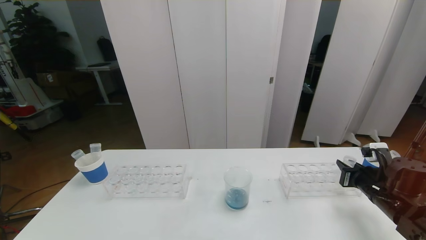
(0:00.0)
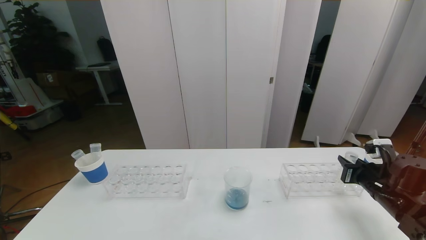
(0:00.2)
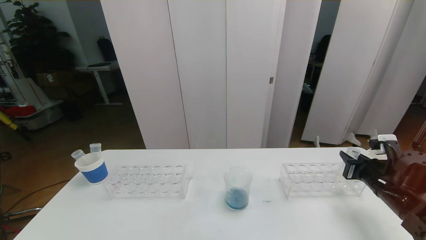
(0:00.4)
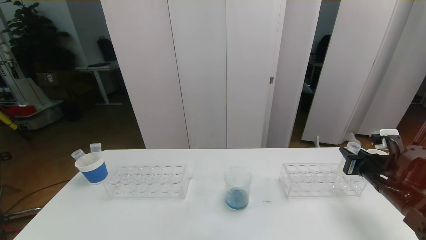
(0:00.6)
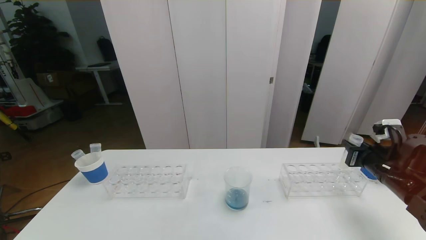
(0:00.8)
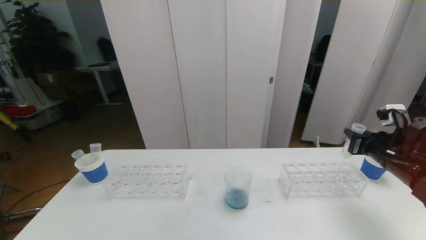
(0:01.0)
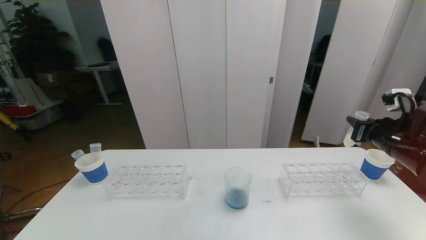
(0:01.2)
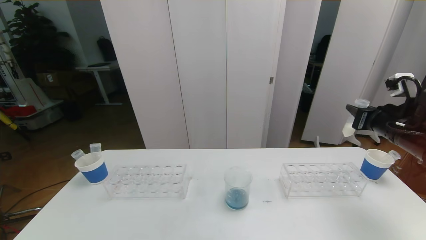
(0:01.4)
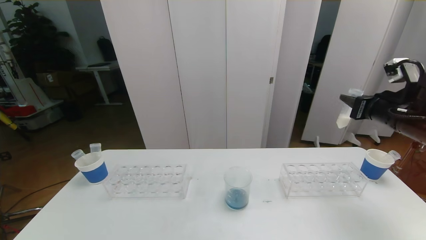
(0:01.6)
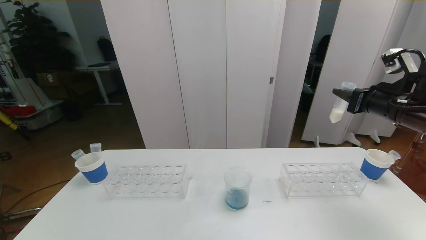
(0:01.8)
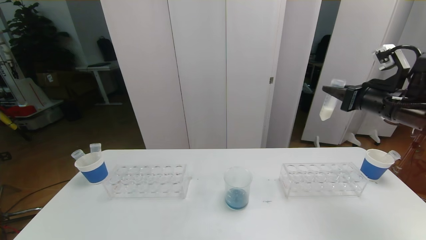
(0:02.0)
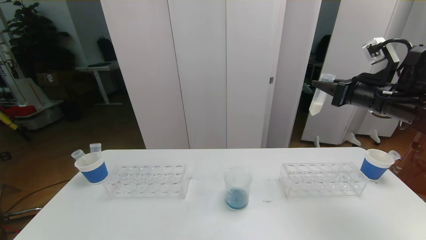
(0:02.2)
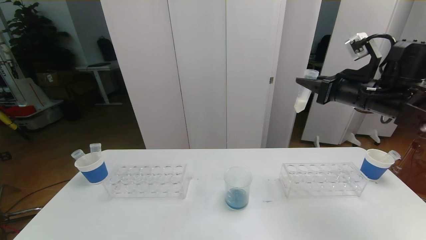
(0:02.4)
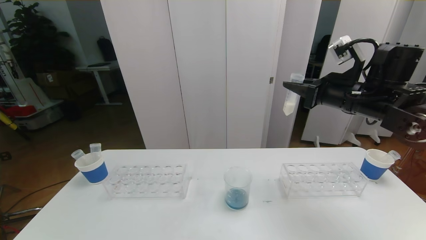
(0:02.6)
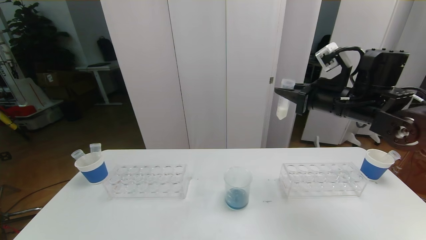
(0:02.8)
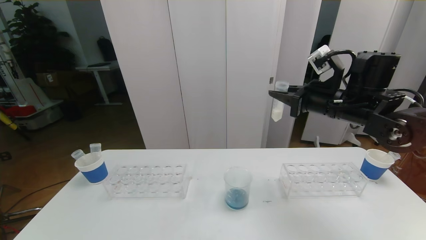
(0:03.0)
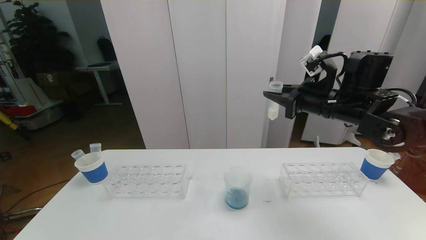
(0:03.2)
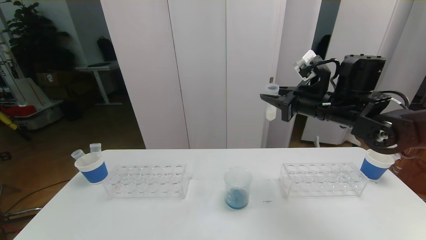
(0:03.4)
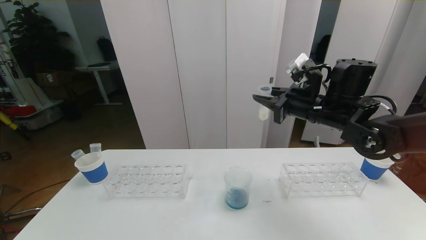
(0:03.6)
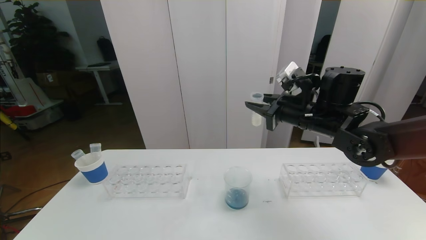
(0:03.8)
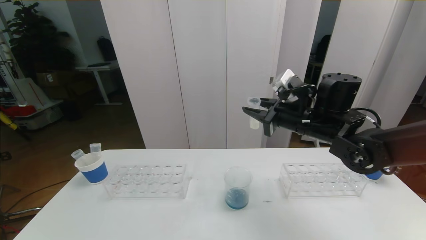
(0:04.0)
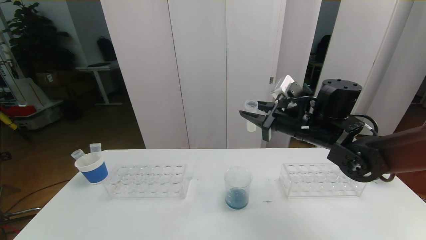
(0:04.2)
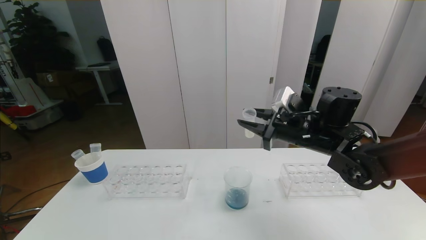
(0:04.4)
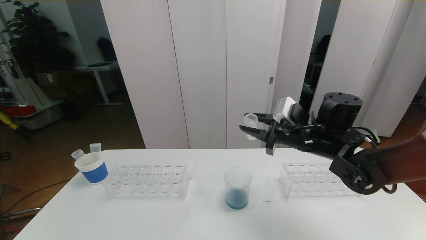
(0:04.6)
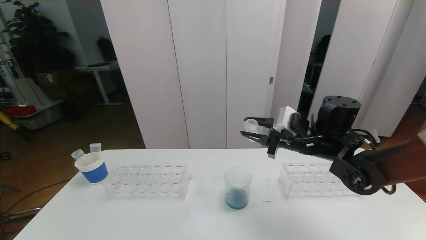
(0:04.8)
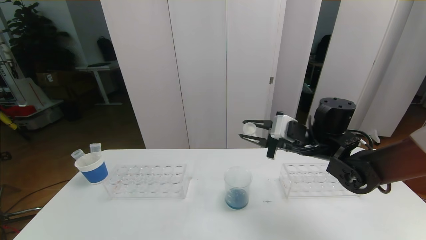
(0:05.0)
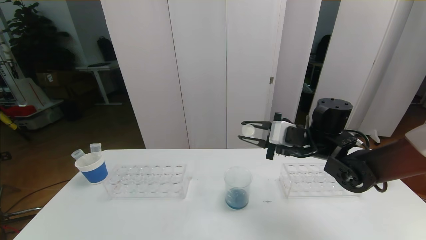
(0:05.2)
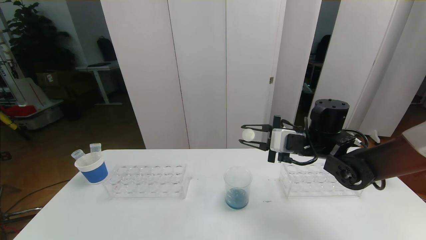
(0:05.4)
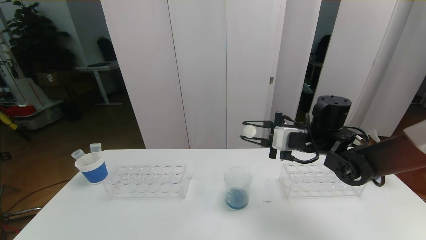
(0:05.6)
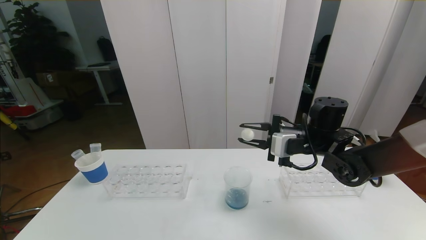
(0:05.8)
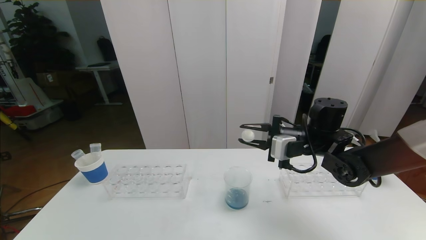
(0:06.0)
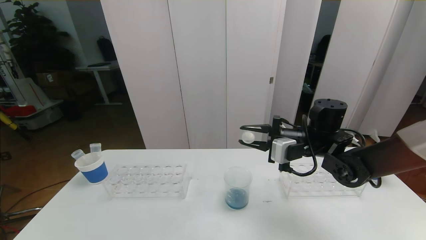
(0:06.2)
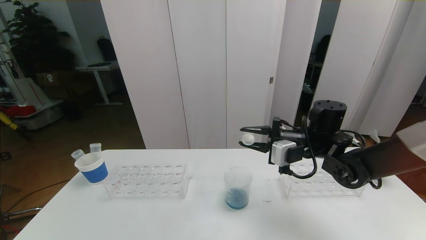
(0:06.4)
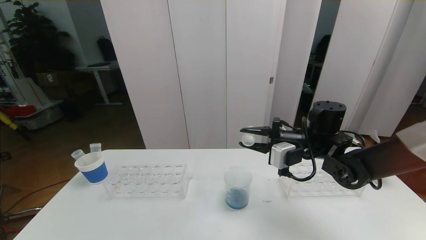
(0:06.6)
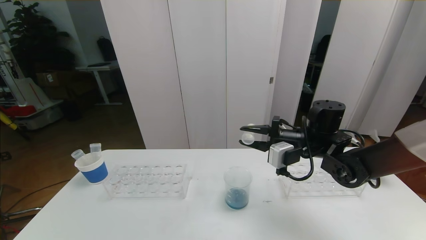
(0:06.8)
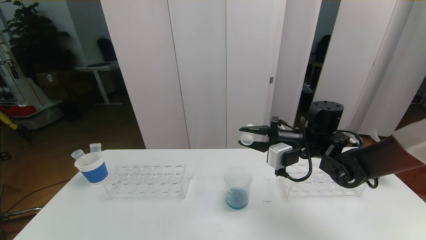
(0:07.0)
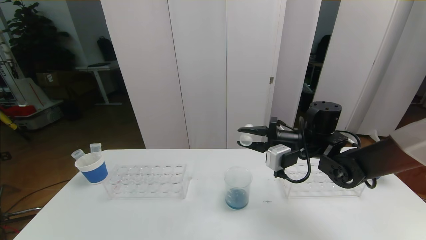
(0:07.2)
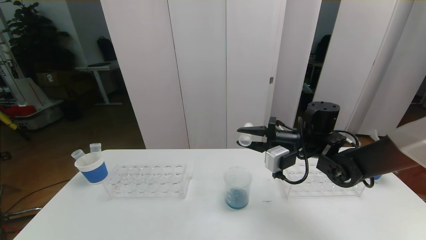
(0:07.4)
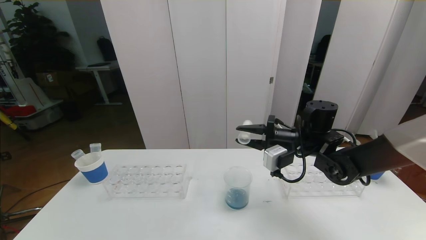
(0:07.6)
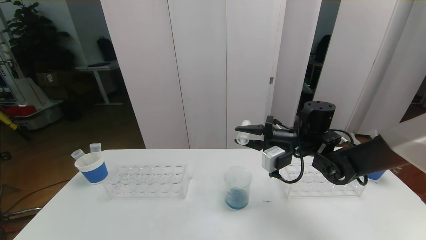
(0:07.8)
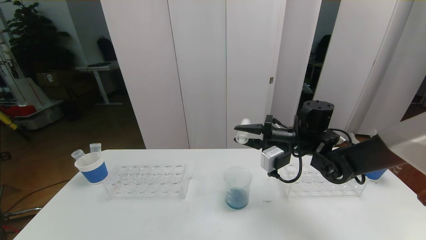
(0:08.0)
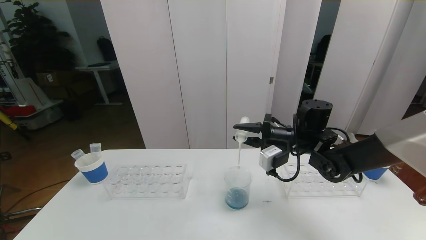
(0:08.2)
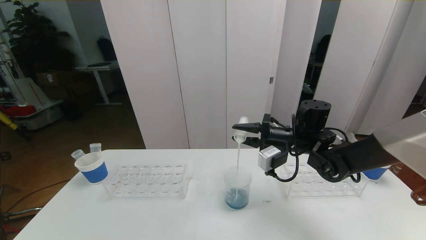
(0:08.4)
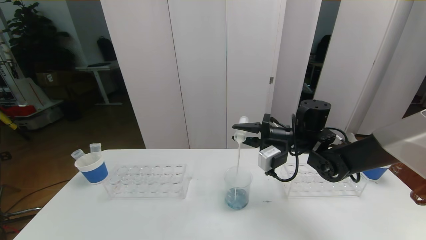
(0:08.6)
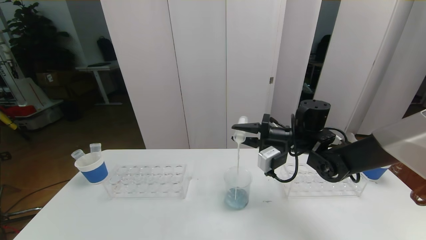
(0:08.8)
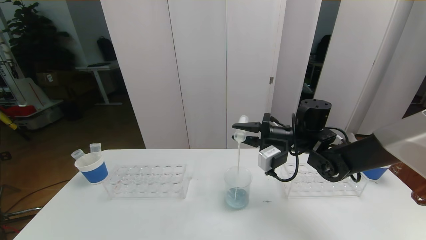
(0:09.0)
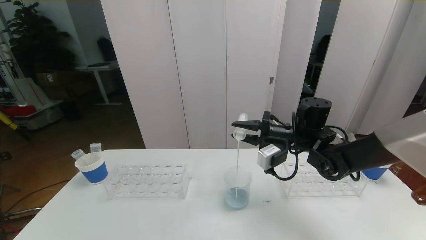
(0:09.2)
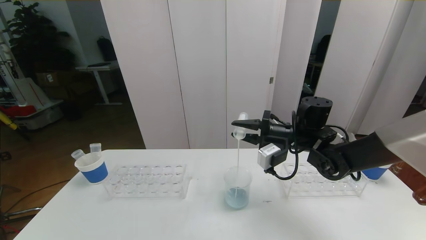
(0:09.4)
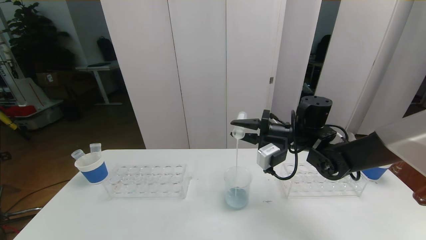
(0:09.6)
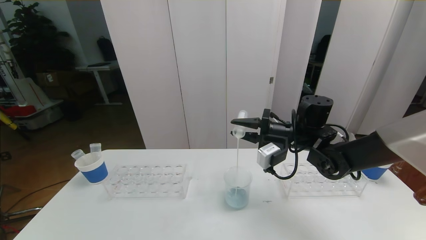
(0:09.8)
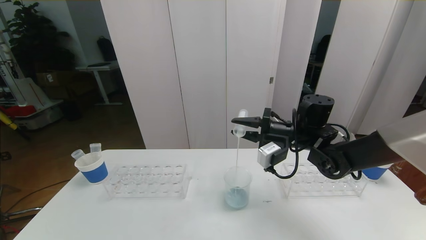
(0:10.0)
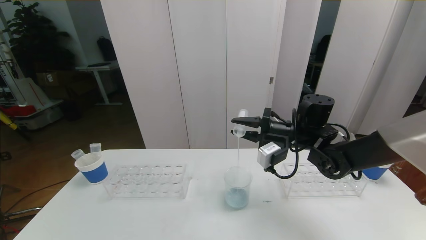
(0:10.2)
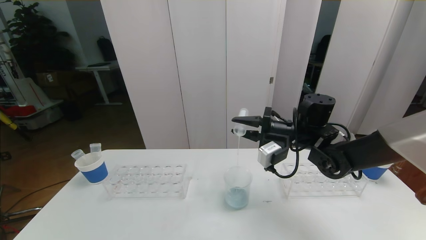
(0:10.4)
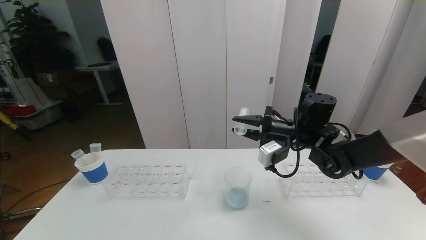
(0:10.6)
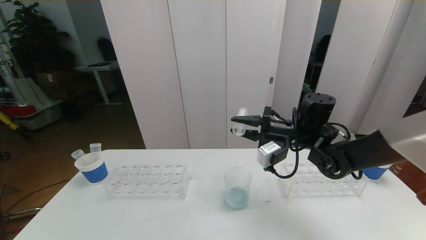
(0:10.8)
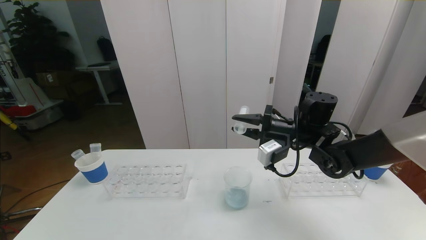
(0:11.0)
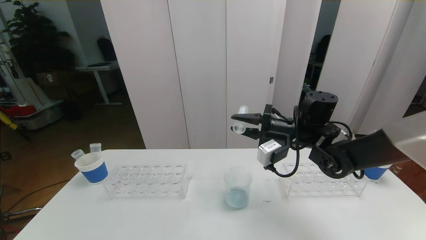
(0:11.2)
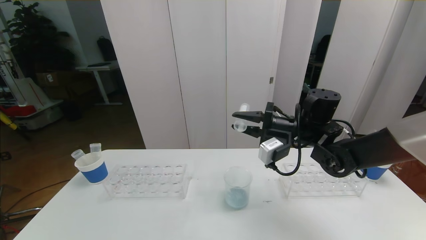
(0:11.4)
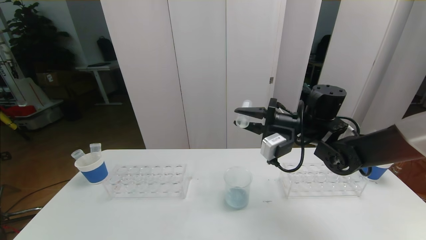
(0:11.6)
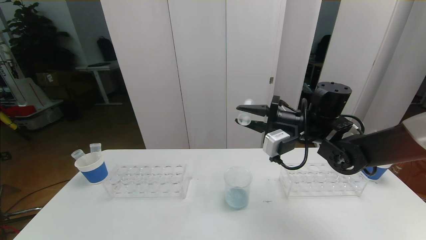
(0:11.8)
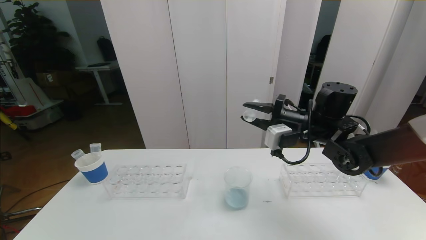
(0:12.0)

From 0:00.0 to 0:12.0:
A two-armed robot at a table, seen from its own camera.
Task of the whole recording: pick up the test tube with red pigment the test tube with blue pigment and the test tube with white pigment by grippers and pour them into the beaker.
From 0:00.0 to 0:01.6: The right gripper travels upward by roughly 15 cm.
From 0:01.6 to 0:03.0: The right gripper is displaced to the left by approximately 10 cm.
From 0:03.0 to 0:04.4: The right gripper goes about 10 cm downward and to the left.
From 0:06.0 to 0:07.6: There are only small adjustments of the grippers.
From 0:07.6 to 0:09.0: The grippers make only small movements.
From 0:09.0 to 0:10.4: The two grippers keep their place.
From 0:10.4 to 0:12.0: There are only small adjustments of the grippers.

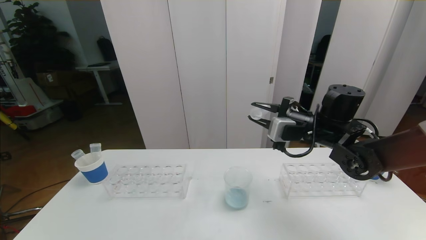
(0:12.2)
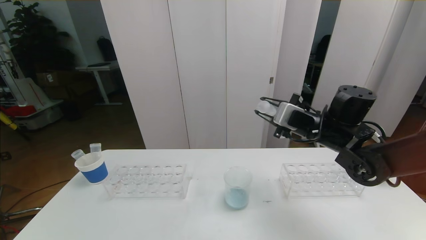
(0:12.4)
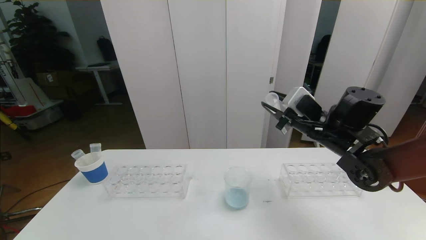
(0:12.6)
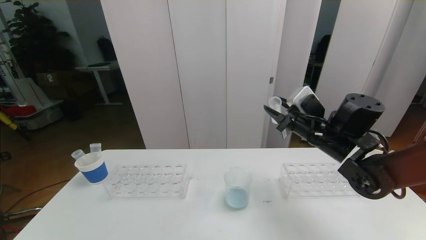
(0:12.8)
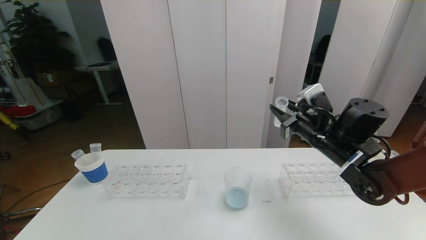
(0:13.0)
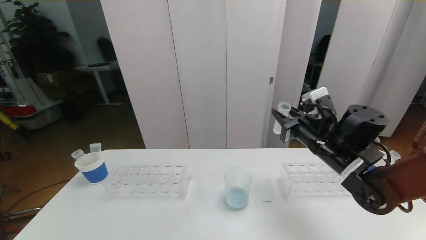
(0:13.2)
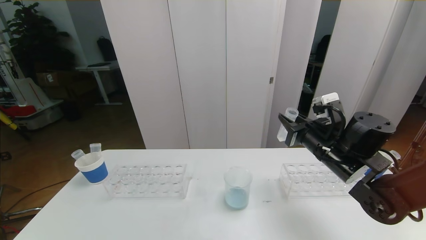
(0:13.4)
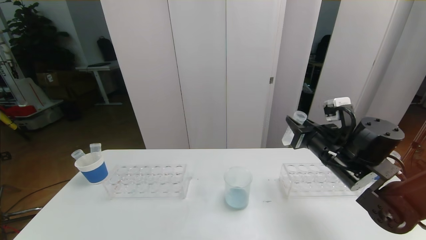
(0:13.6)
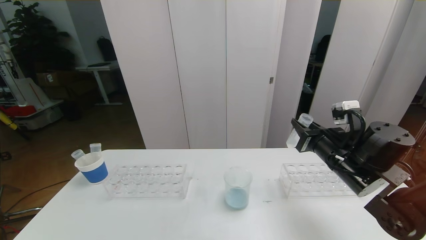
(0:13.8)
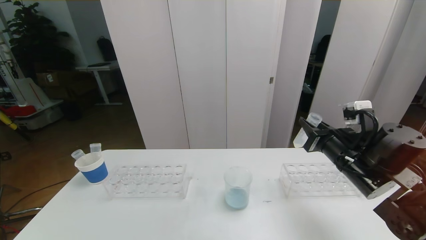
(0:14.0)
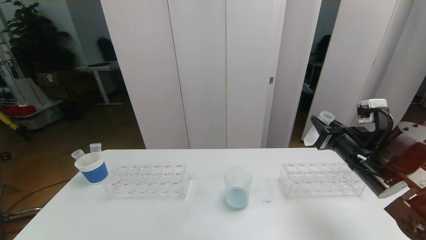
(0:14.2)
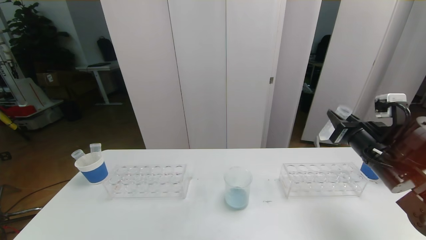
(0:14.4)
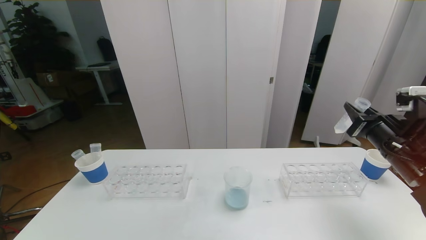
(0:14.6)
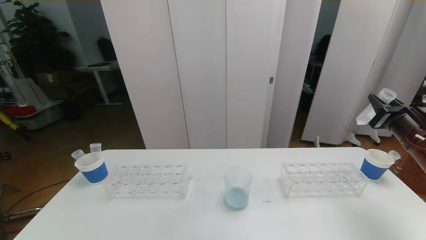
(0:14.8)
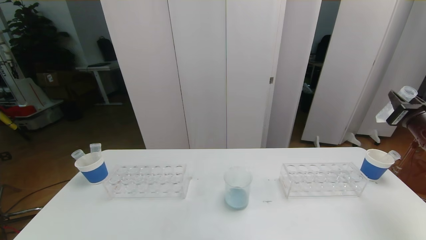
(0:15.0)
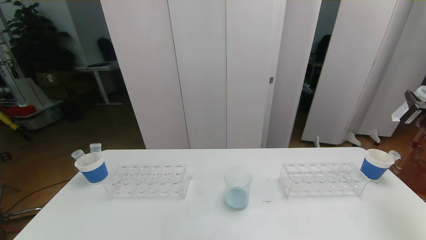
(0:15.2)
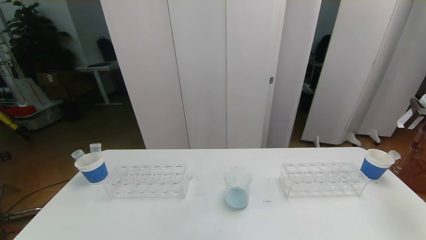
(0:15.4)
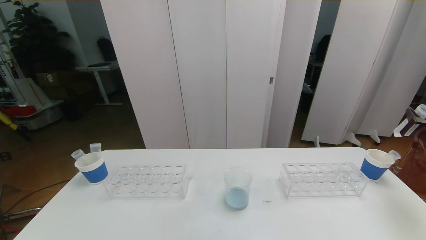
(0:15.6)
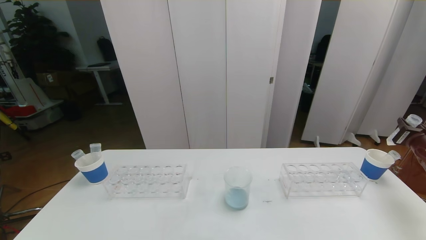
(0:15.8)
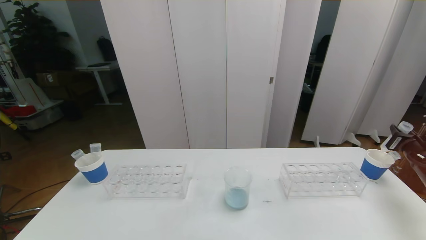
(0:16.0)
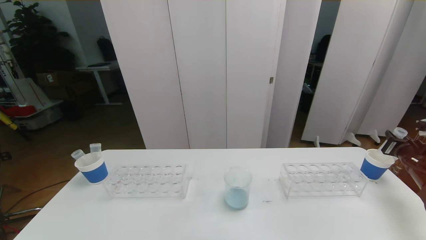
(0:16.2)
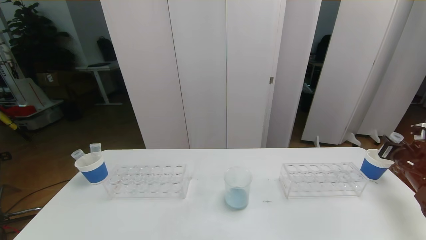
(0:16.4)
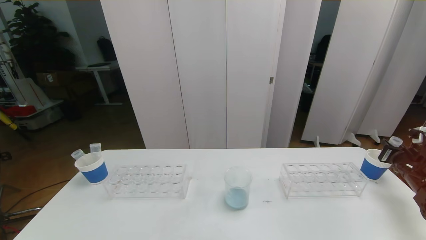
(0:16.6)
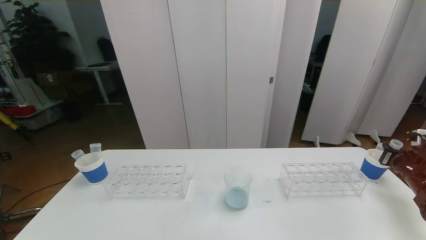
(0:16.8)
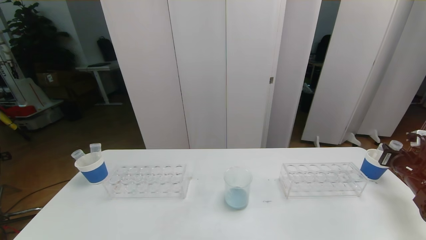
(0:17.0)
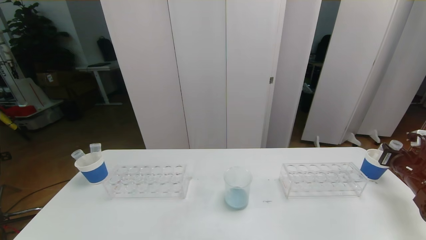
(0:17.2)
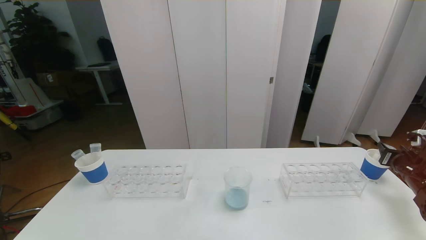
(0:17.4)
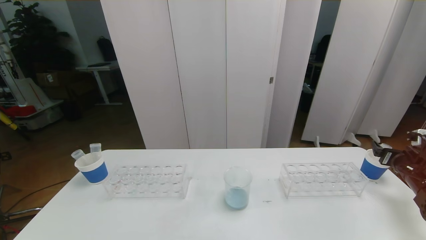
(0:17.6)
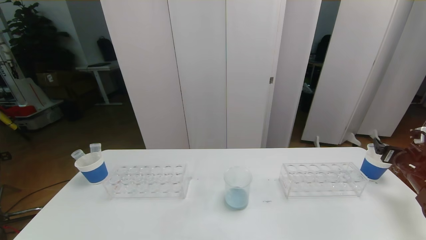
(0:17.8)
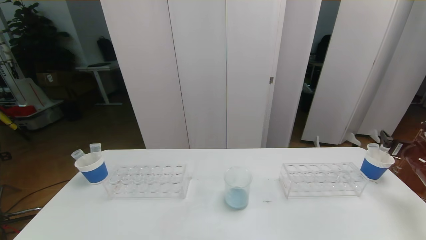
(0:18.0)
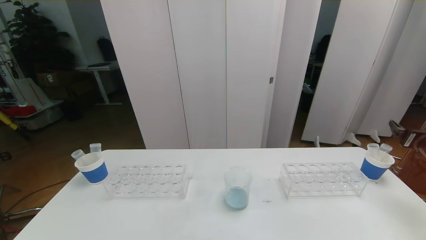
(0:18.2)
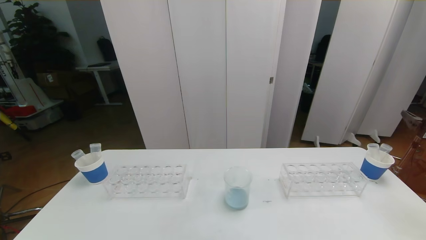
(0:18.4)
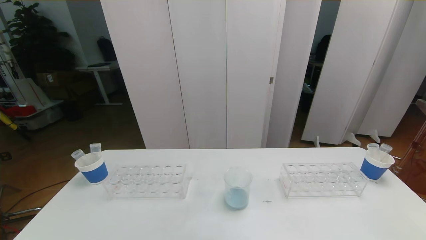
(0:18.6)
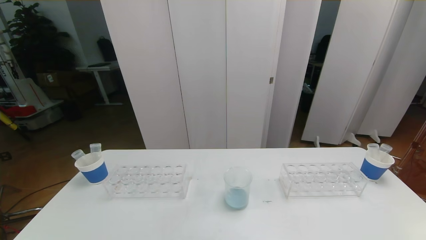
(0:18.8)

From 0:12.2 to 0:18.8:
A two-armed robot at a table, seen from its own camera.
Task of the whole recording: pick up the test tube with red pigment the test tube with blue pigment and the test tube with white pigment by grippers and pour them into the beaker.
From 0:12.2 to 0:13.8: The right gripper is displaced backward by about 5 cm.
From 0:13.8 to 0:15.4: The right gripper is displaced to the right by some 20 cm.
From 0:15.4 to 0:17.2: The right gripper goes some 10 cm downward.
From 0:17.2 to 0:18.8: The right gripper travels upward and backward by some 25 cm, and opens its fingers.
